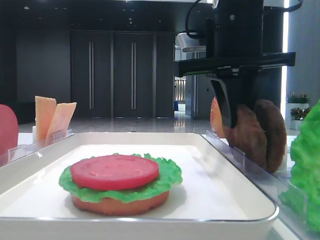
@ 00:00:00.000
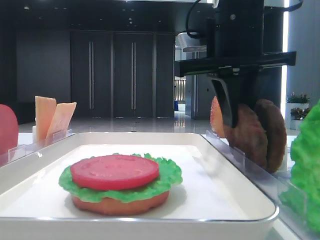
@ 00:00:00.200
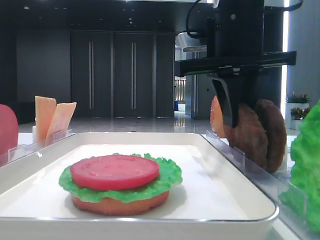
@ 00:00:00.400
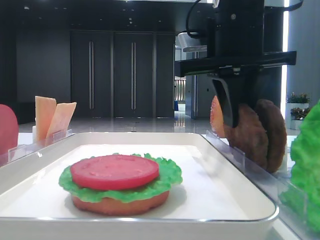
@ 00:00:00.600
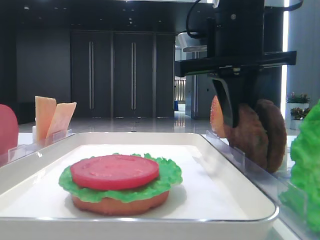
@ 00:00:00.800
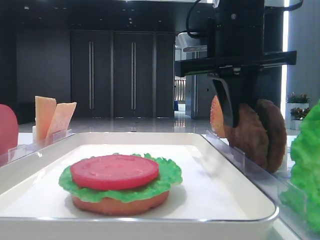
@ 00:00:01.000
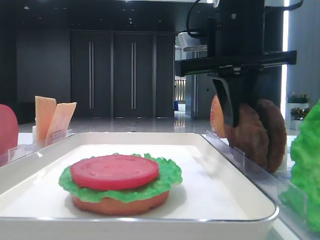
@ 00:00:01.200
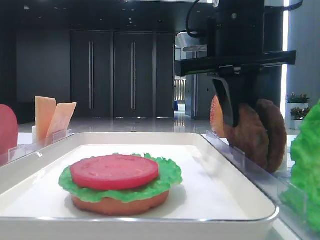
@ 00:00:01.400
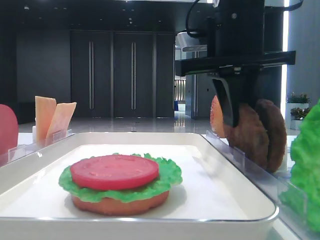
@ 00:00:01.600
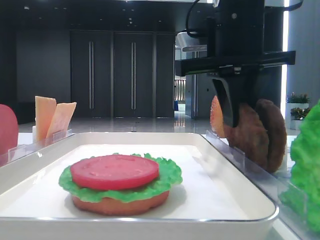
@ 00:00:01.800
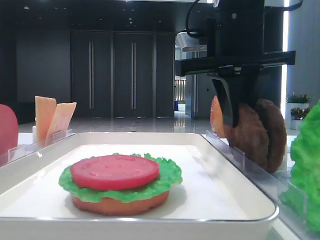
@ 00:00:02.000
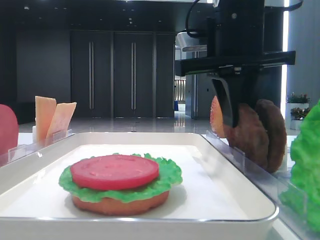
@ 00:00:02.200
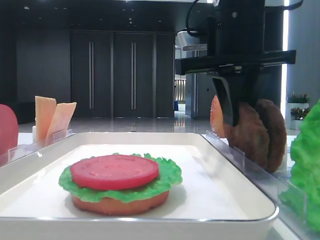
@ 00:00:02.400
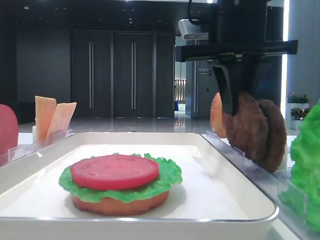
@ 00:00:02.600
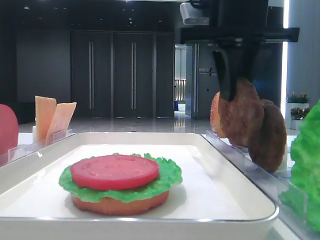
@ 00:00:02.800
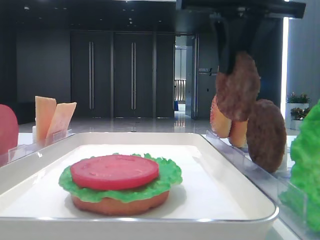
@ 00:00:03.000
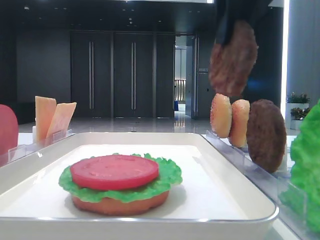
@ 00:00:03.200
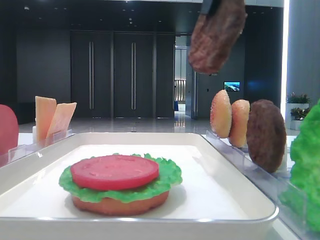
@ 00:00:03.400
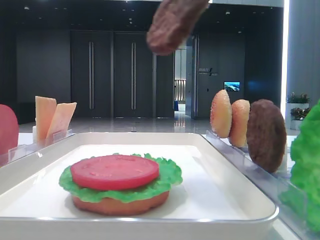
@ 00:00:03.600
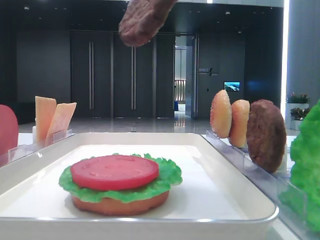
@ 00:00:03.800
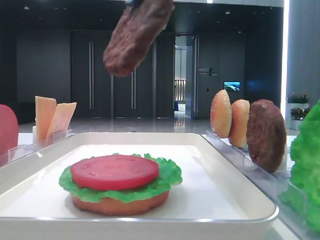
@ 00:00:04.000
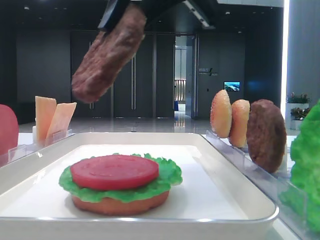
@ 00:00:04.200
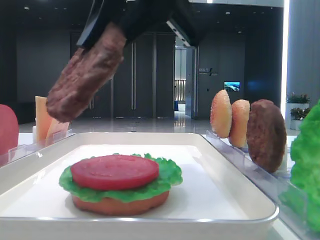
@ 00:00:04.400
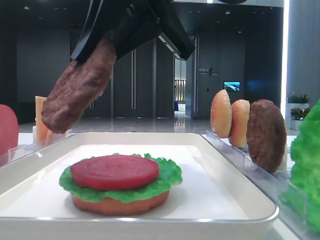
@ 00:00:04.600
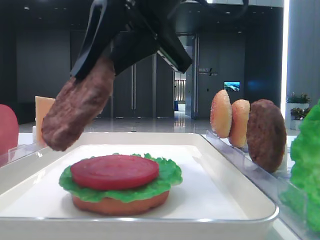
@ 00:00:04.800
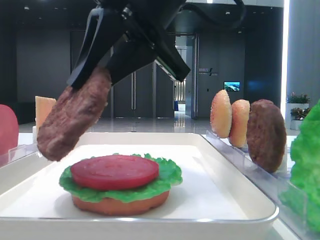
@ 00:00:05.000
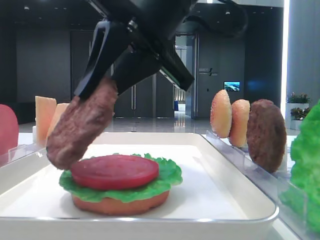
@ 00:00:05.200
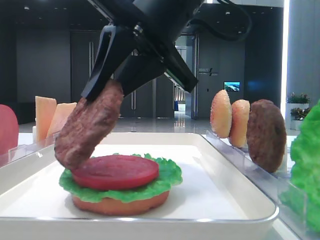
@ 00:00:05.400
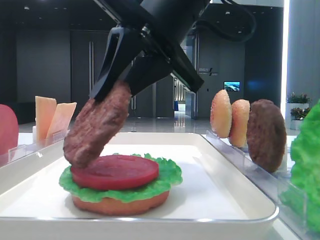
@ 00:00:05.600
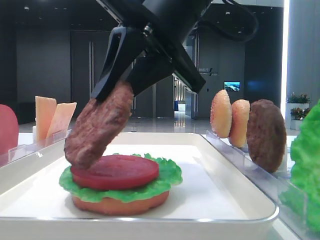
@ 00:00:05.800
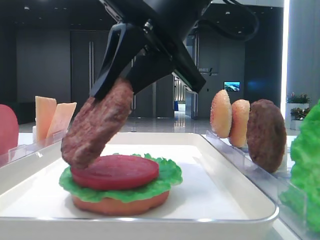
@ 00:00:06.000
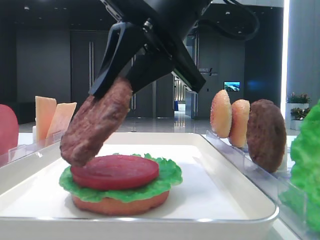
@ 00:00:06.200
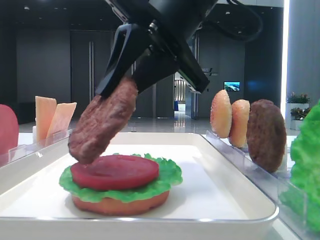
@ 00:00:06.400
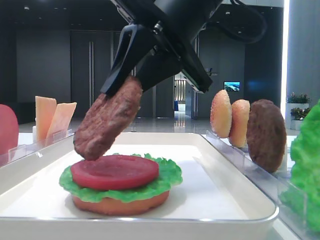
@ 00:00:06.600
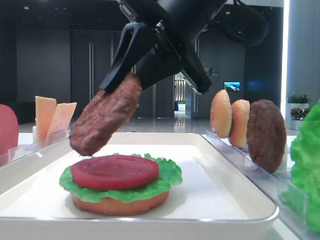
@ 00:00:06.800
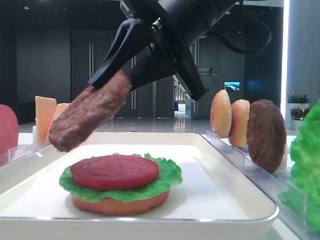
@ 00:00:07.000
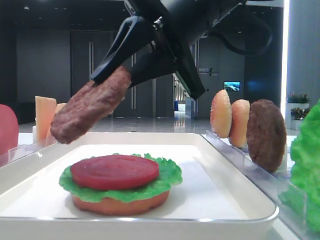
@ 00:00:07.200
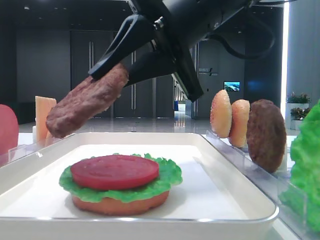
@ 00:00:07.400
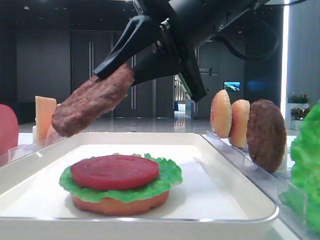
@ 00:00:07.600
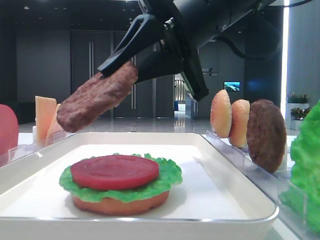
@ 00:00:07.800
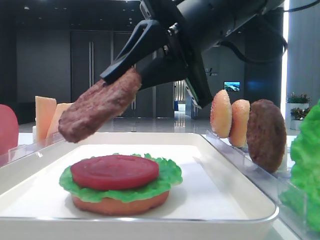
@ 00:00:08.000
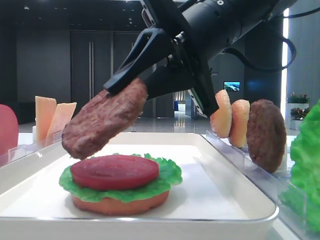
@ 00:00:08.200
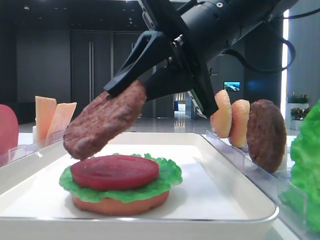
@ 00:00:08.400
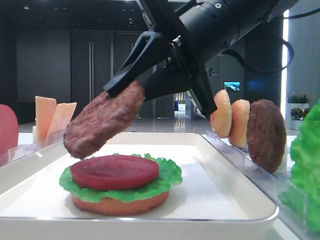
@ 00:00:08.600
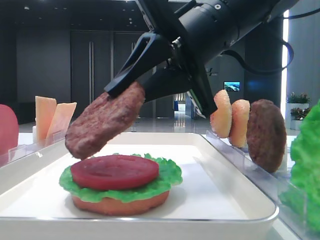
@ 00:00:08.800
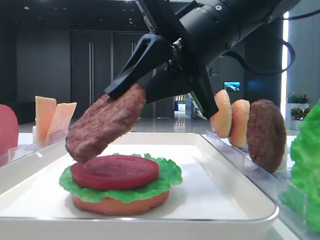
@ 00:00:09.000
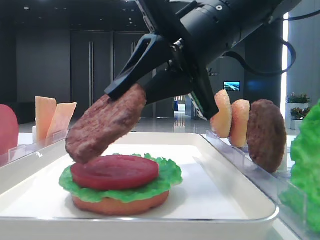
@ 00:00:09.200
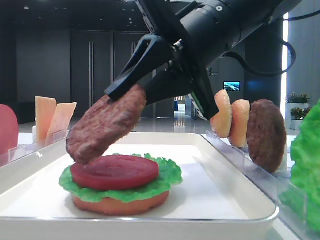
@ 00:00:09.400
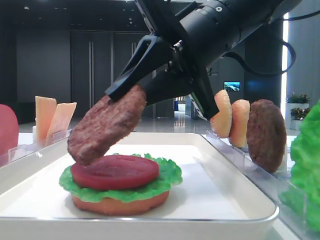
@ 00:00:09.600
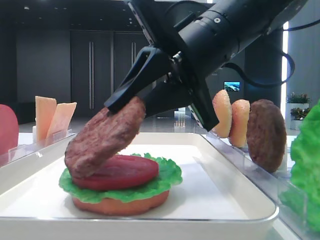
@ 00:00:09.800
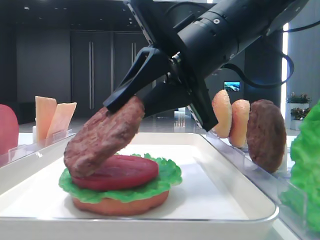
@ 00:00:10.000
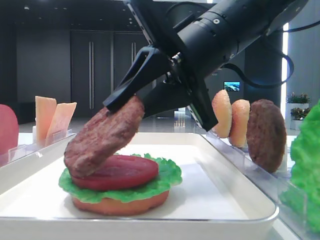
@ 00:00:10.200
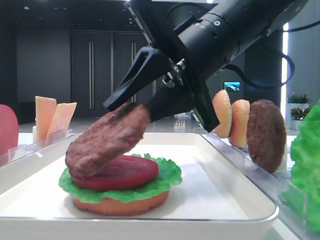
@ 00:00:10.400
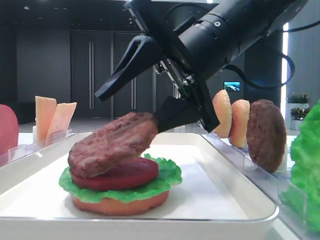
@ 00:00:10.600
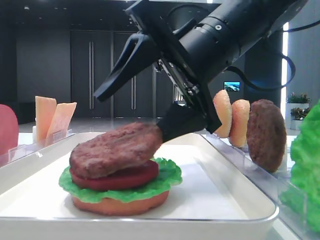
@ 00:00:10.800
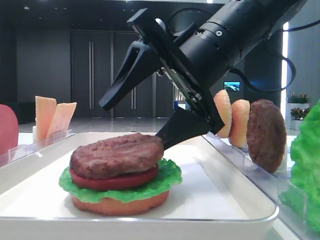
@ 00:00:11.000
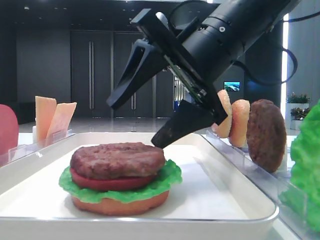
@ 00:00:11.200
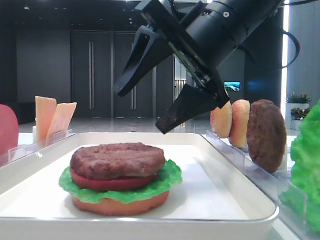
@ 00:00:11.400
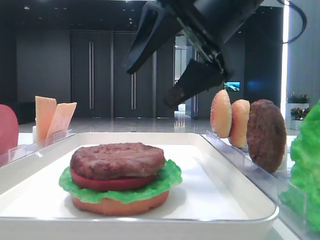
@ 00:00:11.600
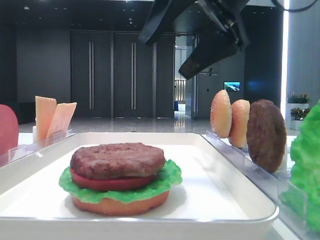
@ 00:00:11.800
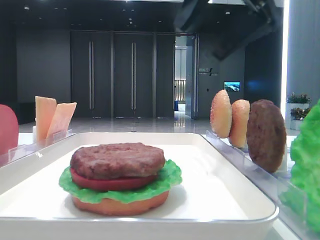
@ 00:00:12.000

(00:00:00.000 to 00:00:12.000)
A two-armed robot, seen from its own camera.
Step, 00:00:02.000 - 00:00:11.200: Place the patty on the tomato slice with the right hand.
00:00:00.000 - 00:00:01.600: Both grippers stay put.
00:00:01.600 - 00:00:03.000: The right gripper heads upward, covering approximately 5 cm.
00:00:03.000 - 00:00:04.400: The right gripper heads to the left, covering about 10 cm.
00:00:04.400 - 00:00:06.000: The right gripper ends up some 5 cm from where it was.
00:00:06.000 - 00:00:09.000: The grippers stay close to where they were, moving slightly.
00:00:09.000 - 00:00:10.400: Neither gripper changes place.
00:00:10.400 - 00:00:12.000: The right gripper is displaced upward and to the right by some 15 cm, and opens its fingers.

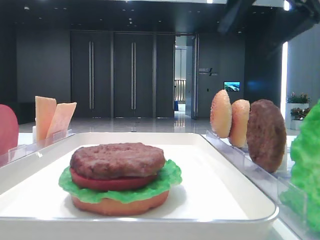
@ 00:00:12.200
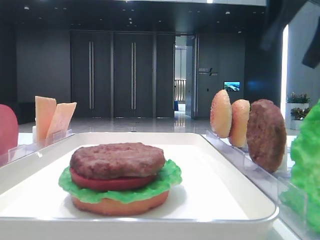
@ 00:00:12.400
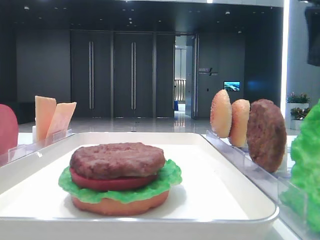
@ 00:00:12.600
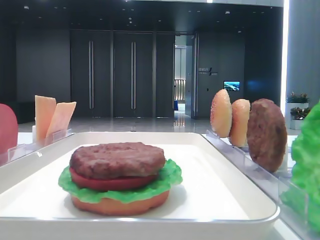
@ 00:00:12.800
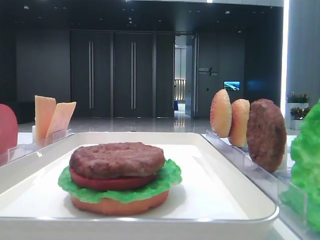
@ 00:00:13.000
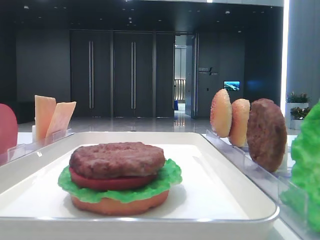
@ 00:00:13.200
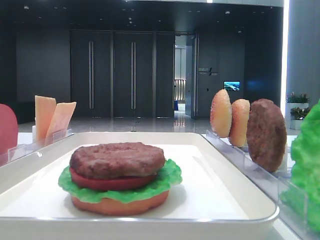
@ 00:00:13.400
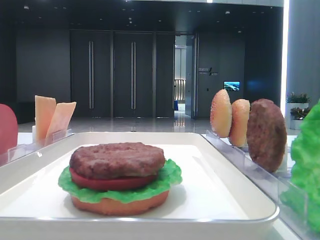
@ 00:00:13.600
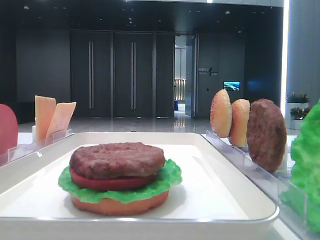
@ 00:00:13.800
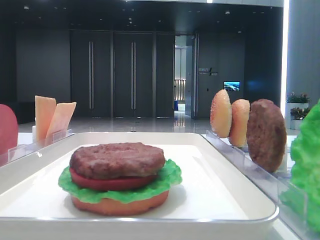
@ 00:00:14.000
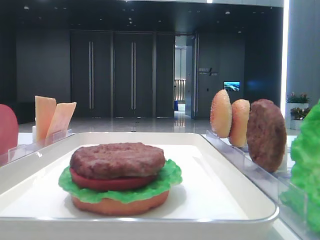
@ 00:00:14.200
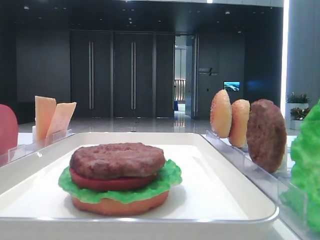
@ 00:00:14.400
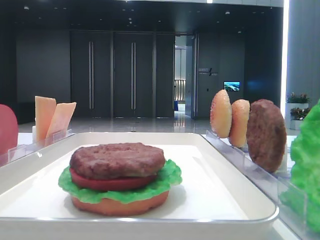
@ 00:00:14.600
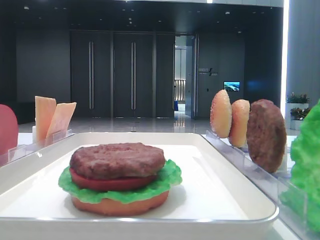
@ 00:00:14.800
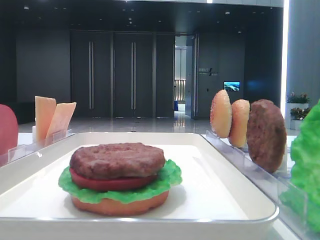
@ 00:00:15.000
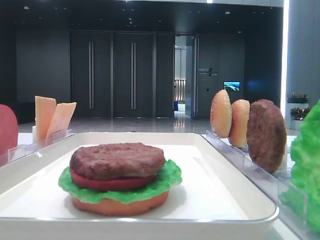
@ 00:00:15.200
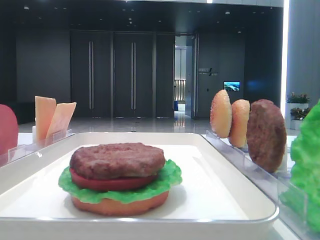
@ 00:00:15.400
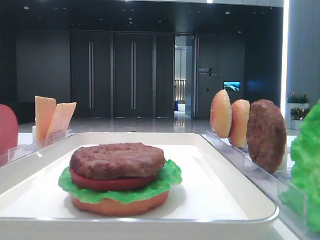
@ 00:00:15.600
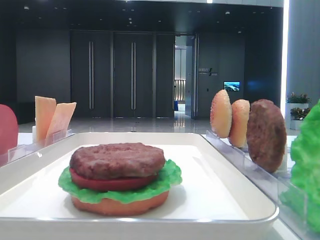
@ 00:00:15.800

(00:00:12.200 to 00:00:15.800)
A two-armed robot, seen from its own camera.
00:00:12.200 - 00:00:14.000: The right gripper moves backward and to the right, approximately 20 cm.
